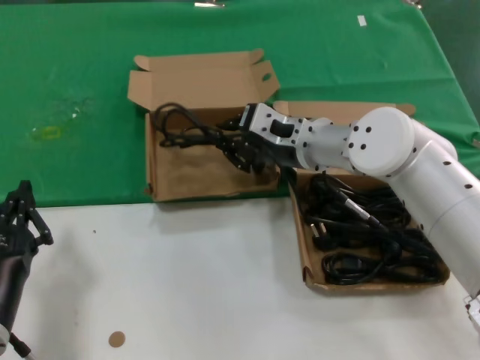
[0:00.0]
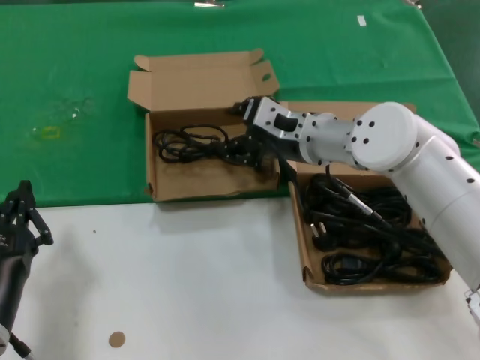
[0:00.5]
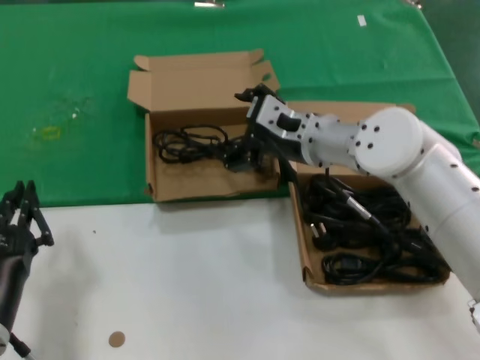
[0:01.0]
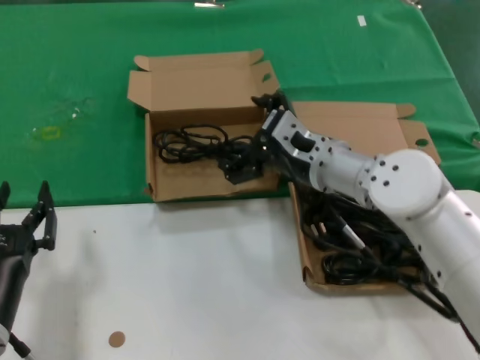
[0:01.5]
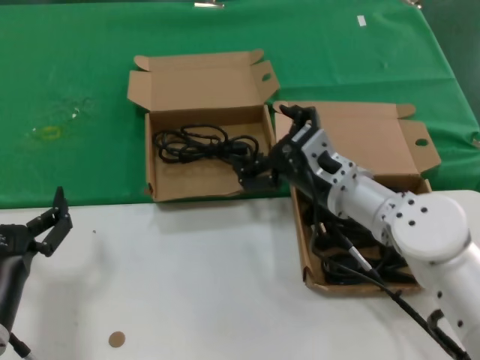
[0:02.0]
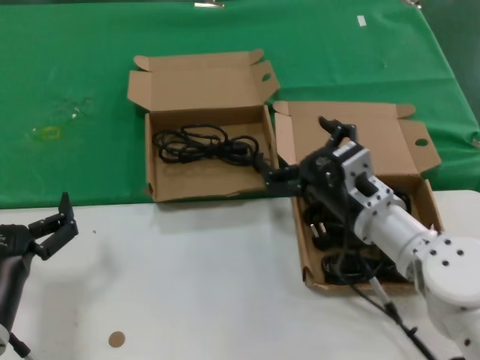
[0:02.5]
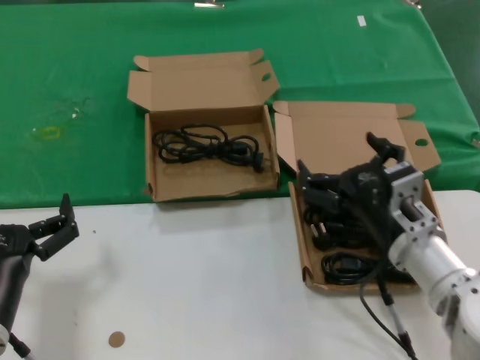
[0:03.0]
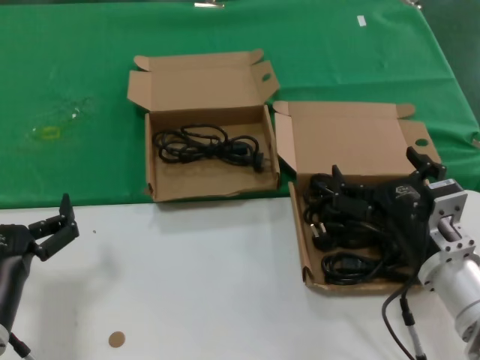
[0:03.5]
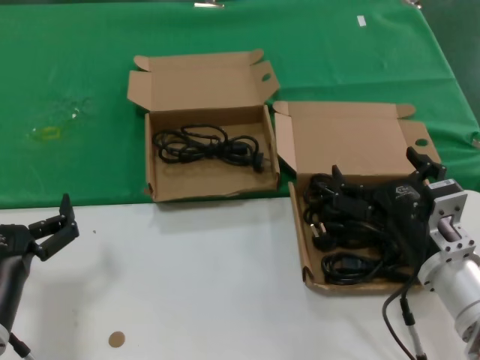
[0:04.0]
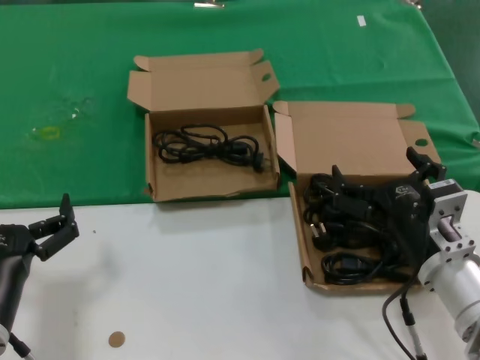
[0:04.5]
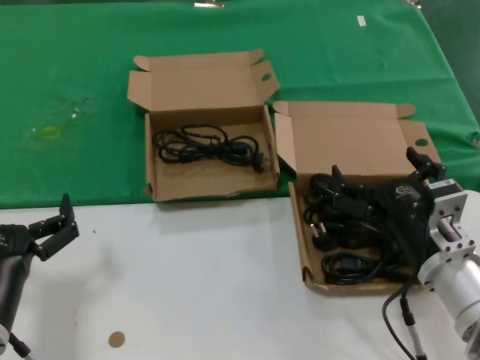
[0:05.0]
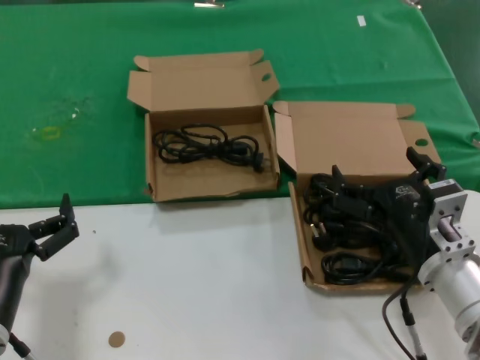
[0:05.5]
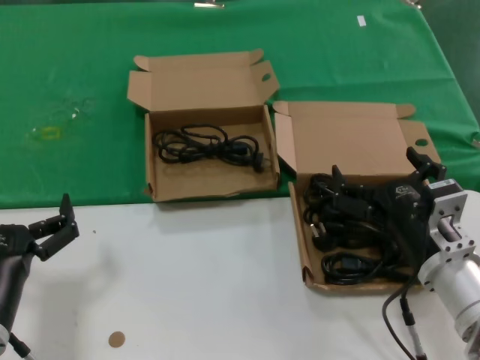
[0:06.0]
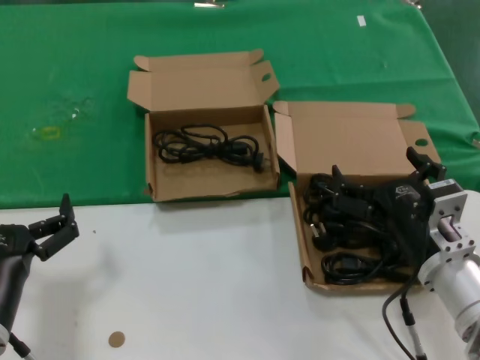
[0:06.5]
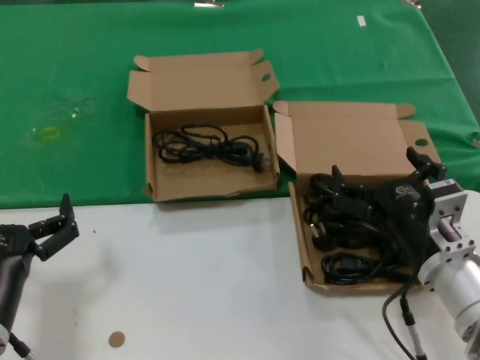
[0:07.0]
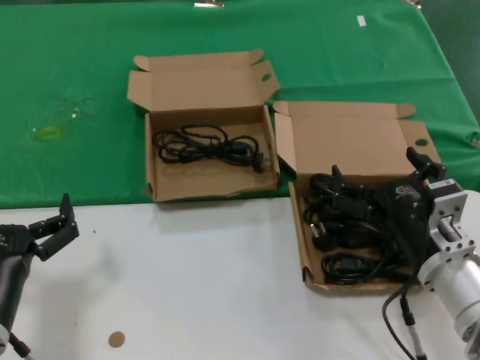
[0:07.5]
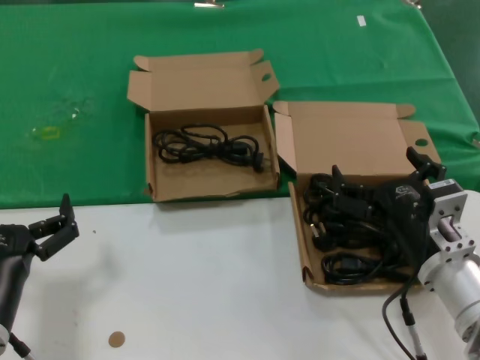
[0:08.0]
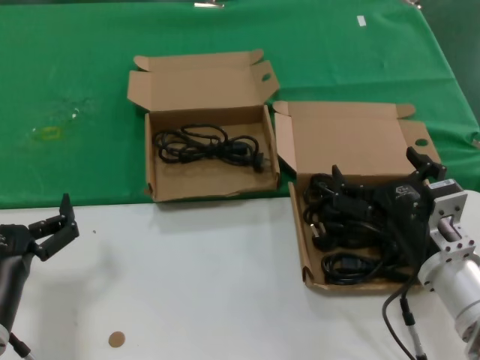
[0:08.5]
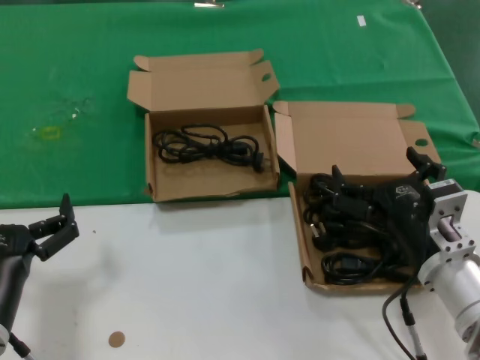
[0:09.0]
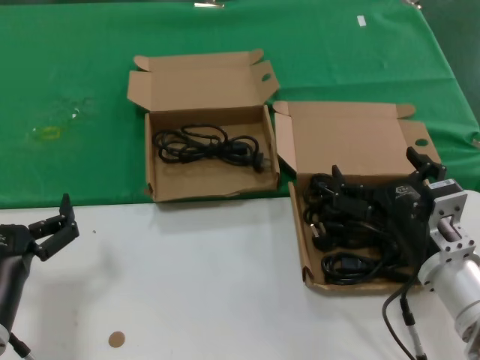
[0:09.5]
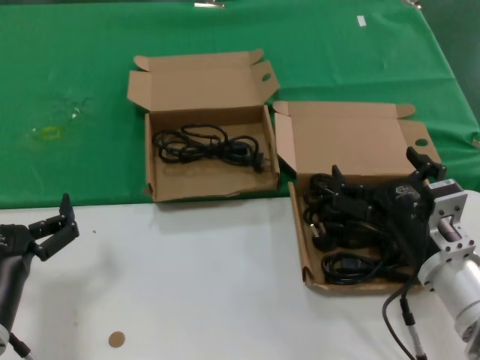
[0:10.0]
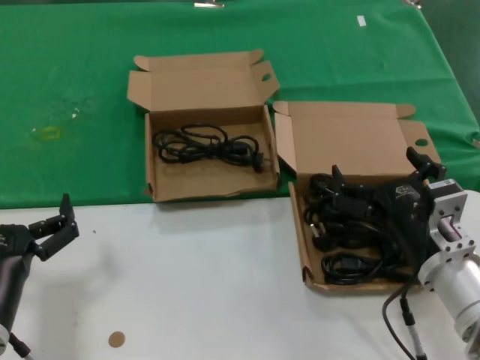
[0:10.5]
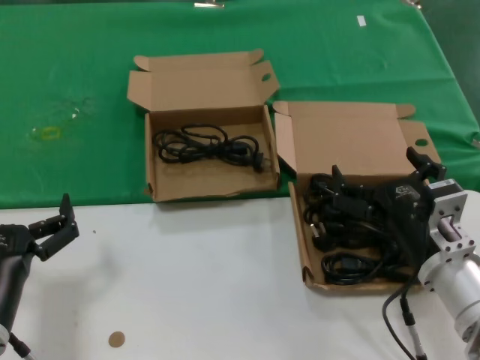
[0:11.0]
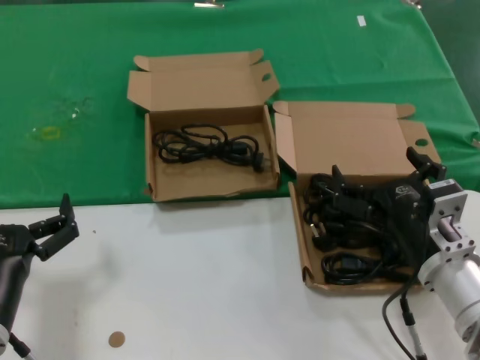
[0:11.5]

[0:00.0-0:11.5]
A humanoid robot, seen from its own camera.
Task of the whole recording: take the parts from the box containing them and put them into an empty box.
0:00.0 to 0:02.0: The right hand goes about 10 cm backward and downward.
0:02.0 to 0:04.0: The right hand shifts roughly 15 cm backward and to the right.
0:04.0 to 0:11.5: Both hands stay about where they are.

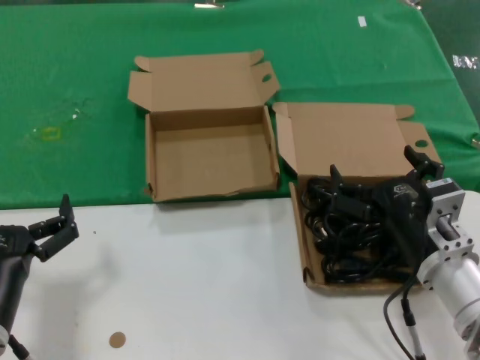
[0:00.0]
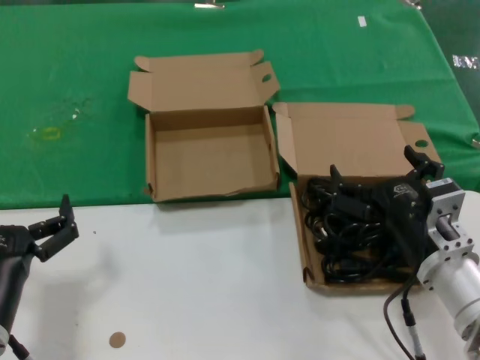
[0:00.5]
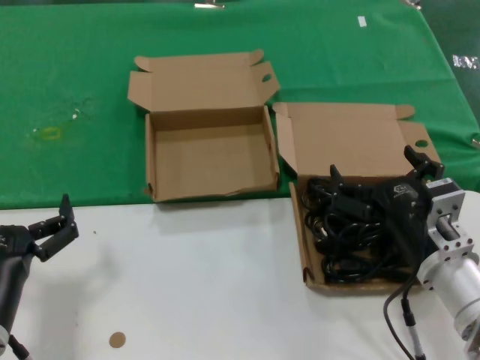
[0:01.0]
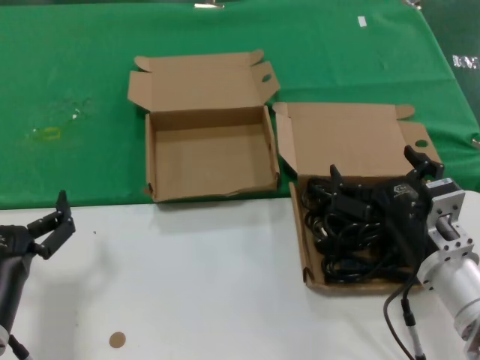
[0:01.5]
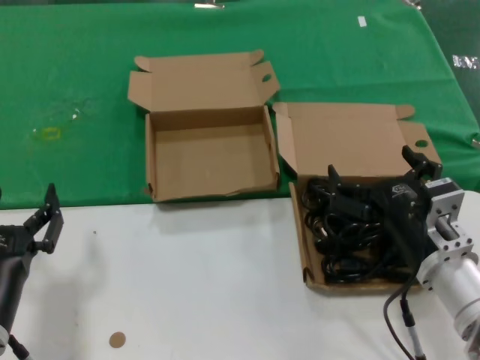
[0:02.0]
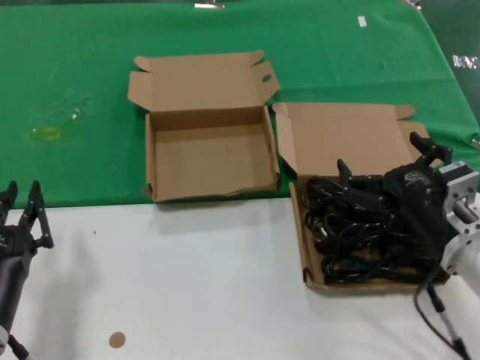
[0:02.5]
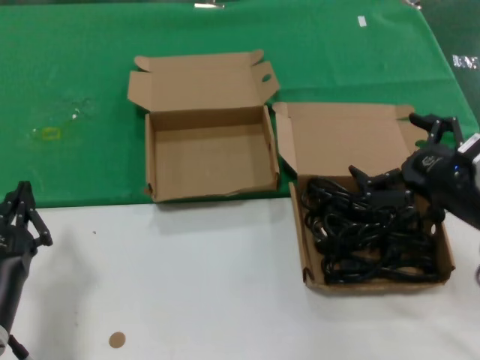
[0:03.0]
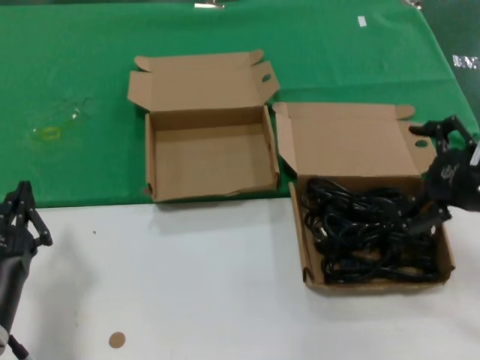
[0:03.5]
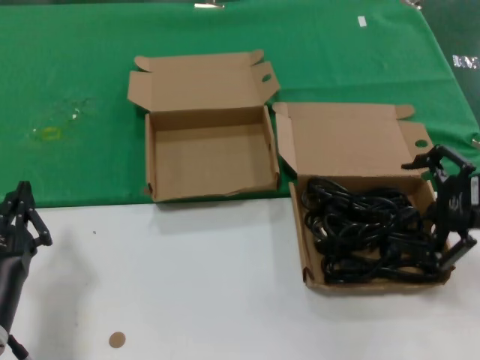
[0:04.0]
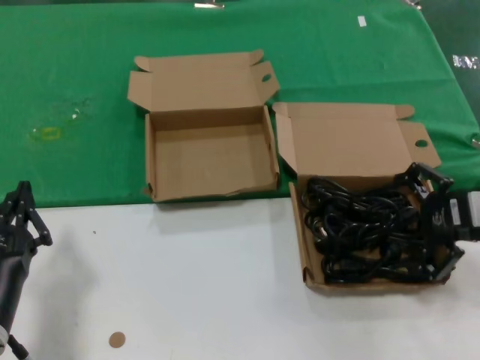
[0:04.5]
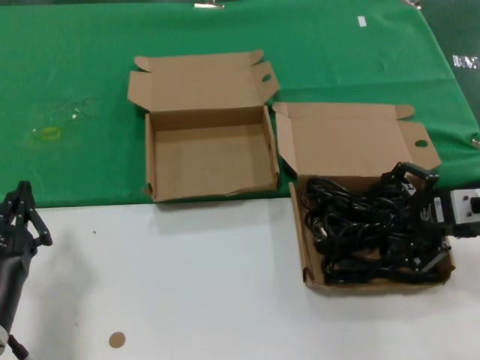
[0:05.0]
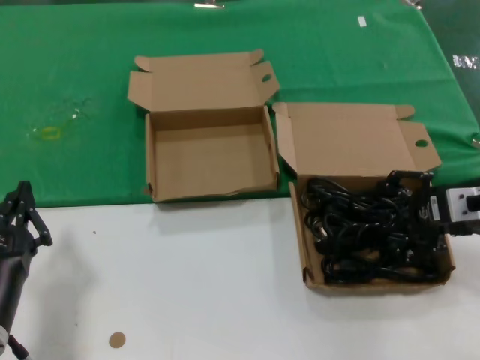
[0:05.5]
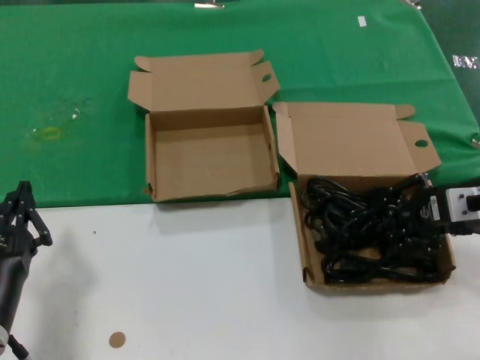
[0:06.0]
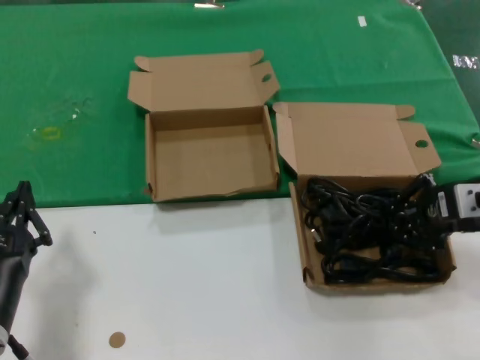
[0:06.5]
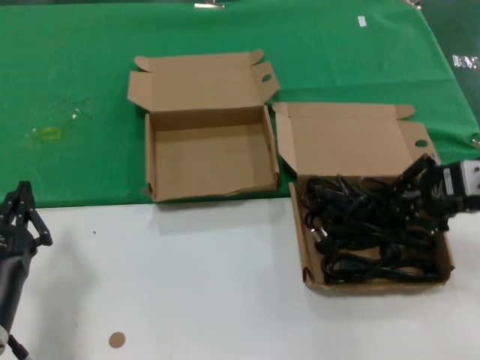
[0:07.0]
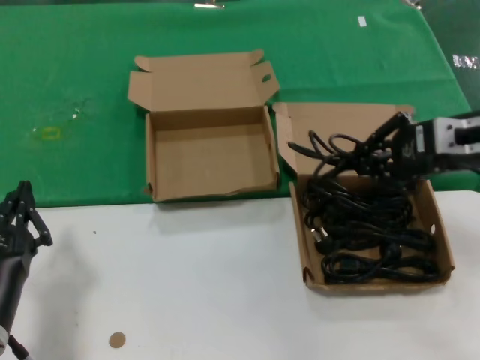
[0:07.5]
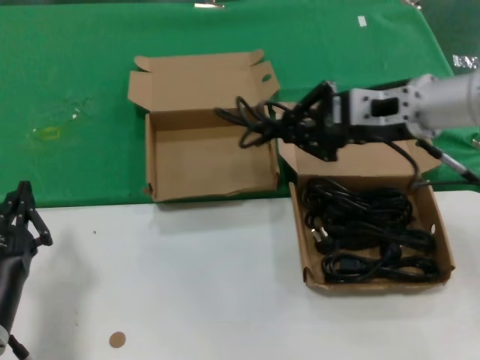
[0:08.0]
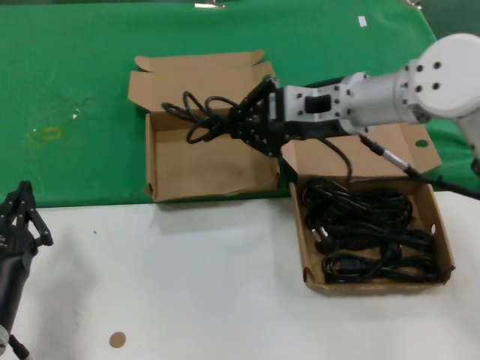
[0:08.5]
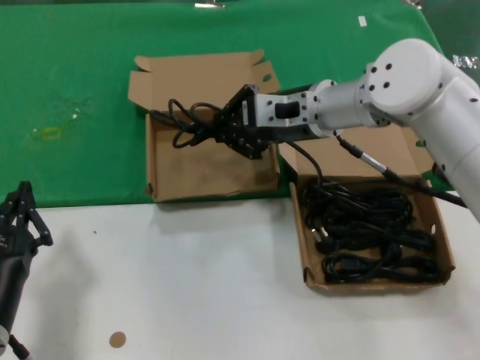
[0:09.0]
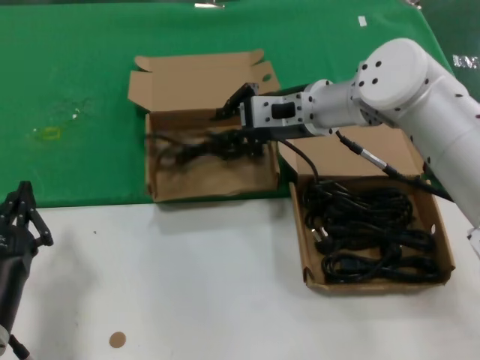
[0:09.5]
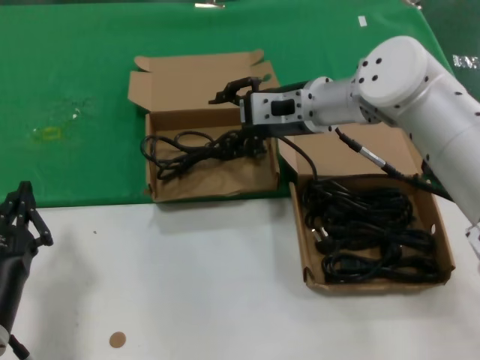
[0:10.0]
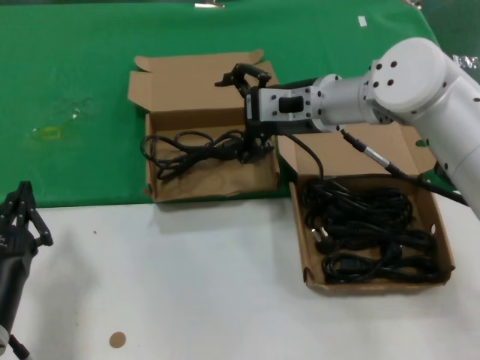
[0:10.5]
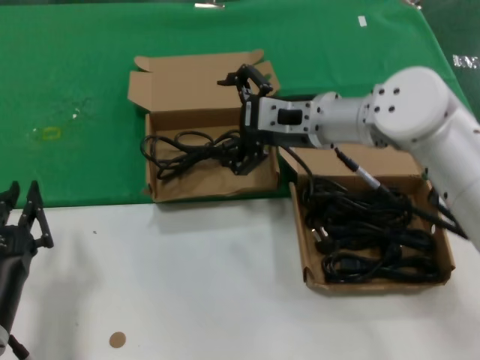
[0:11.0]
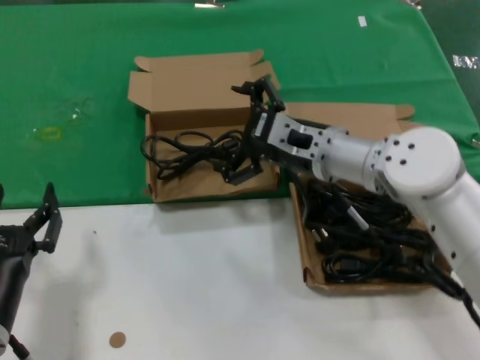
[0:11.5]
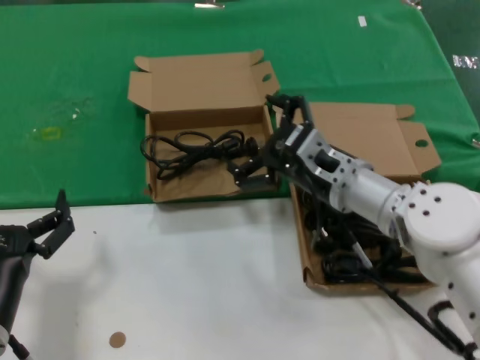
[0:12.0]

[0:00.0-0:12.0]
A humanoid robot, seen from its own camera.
Task of the whole recording: take the parts from the box containing them and put them into an empty box.
Step, 0:00.0 to 0:05.5: Grasp the data cable.
Step, 0:06.0 to 0:09.5: Place the data cable in the another box.
0:00.0 to 0:02.0: Both hands stay put.
0:02.0 to 0:04.0: The right hand travels to the right and upward by roughly 20 cm.
0:04.0 to 0:06.0: The right hand is displaced forward by roughly 5 cm.
0:06.0 to 0:08.0: The right hand is displaced to the left, upward and forward by about 15 cm.
0:08.0 to 0:10.0: The right hand is displaced to the left and forward by roughly 15 cm.
0:10.0 to 0:12.0: The right hand travels downward and backward by some 15 cm.

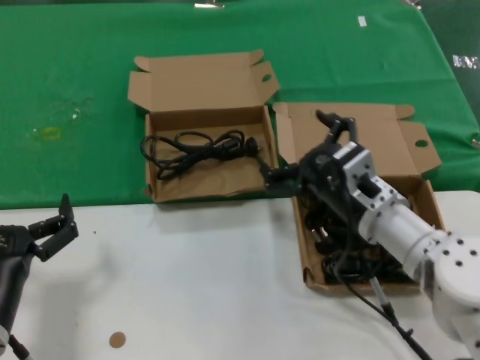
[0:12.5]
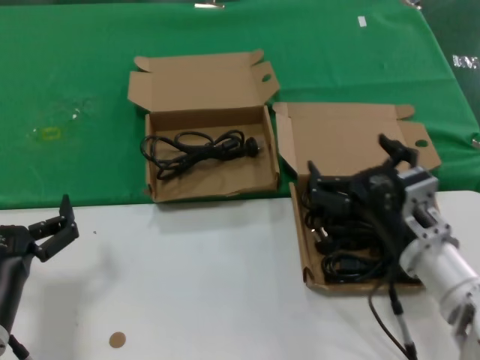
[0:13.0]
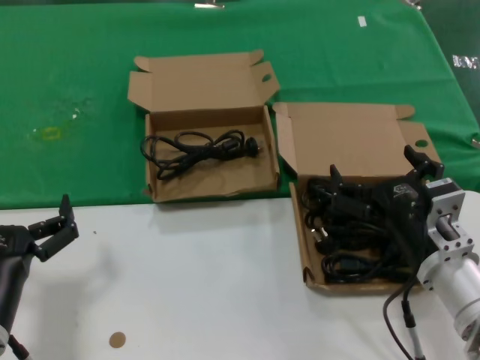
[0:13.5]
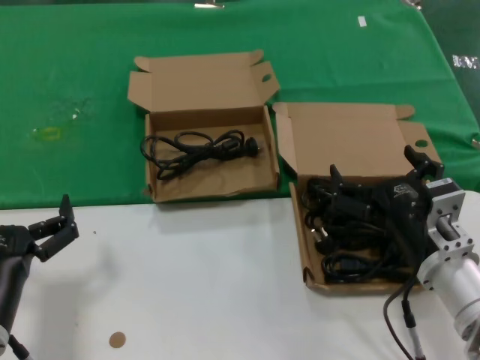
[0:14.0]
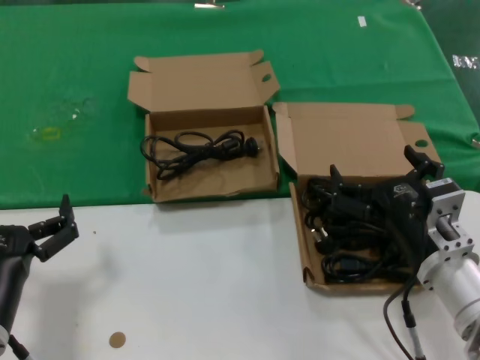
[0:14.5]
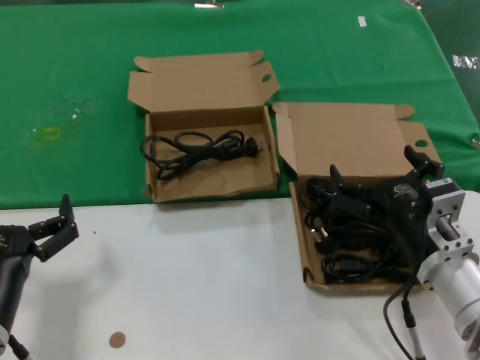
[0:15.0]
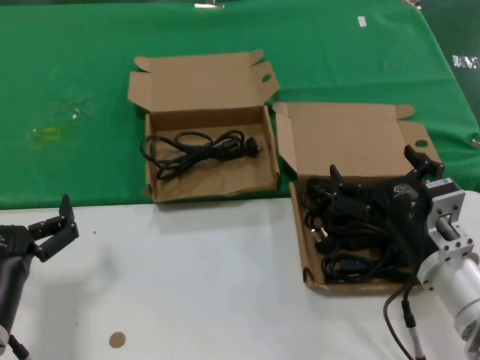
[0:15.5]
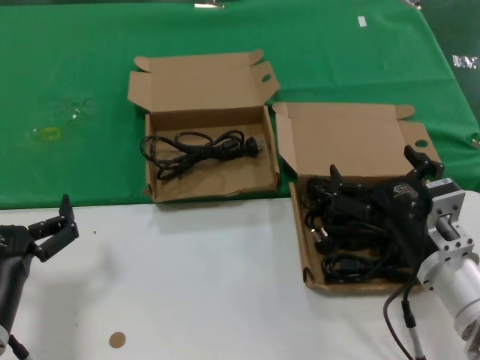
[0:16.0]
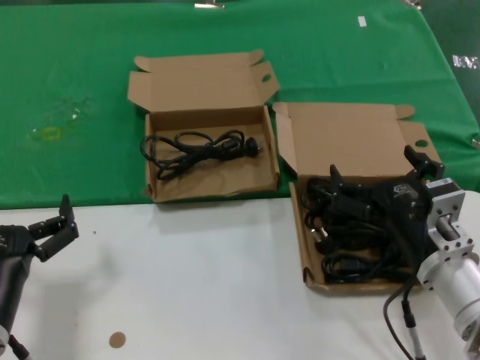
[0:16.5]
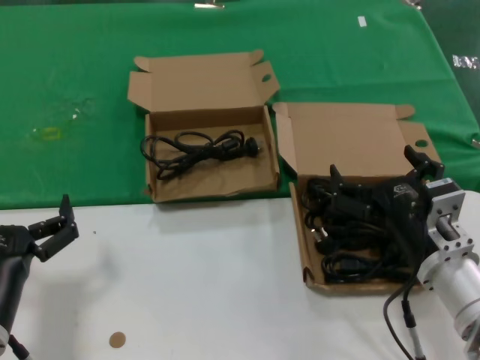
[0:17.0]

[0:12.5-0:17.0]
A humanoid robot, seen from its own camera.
Task of the whole recording: take the parts from the box containing them and put them into an empty box.
0:12.5 to 0:14.5: The right hand shifts about 10 cm backward.
0:14.5 to 0:17.0: Neither hand changes place.
